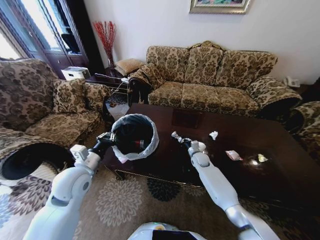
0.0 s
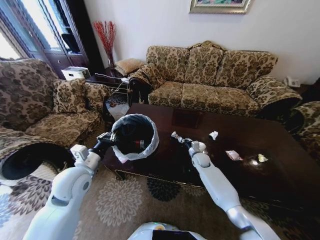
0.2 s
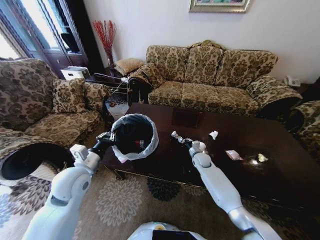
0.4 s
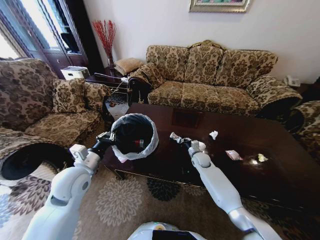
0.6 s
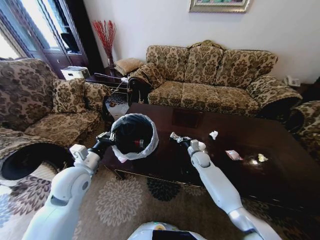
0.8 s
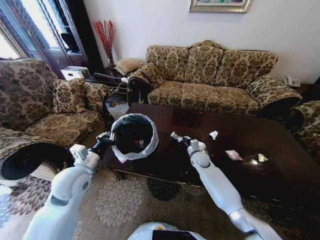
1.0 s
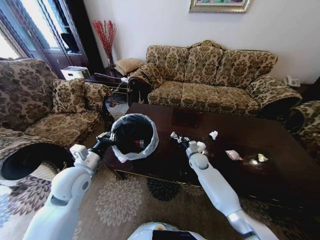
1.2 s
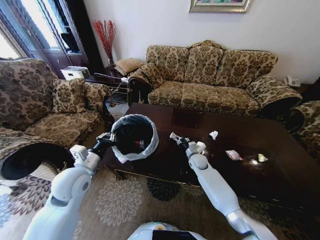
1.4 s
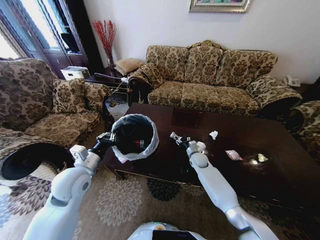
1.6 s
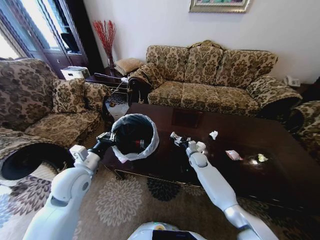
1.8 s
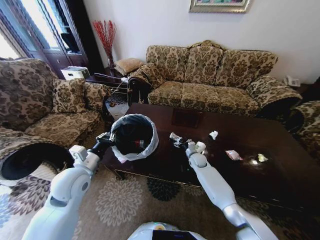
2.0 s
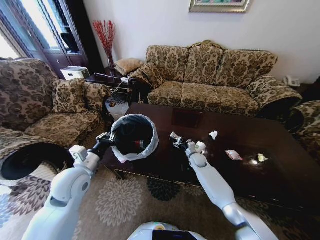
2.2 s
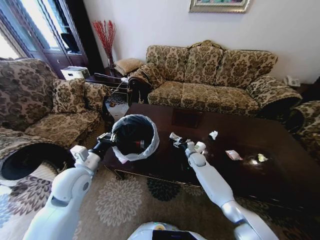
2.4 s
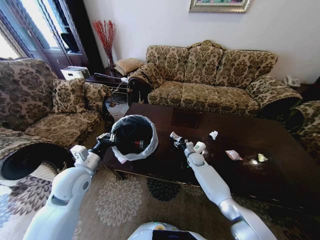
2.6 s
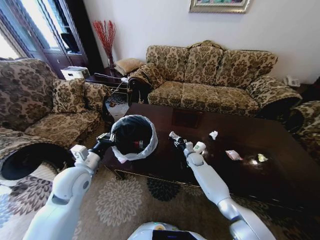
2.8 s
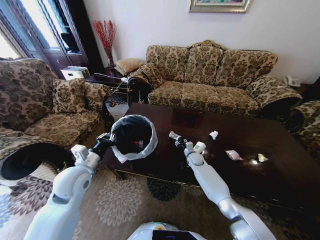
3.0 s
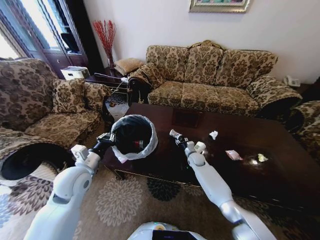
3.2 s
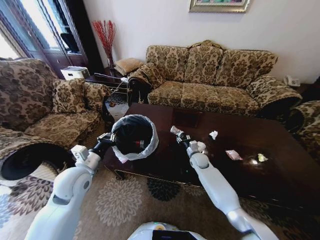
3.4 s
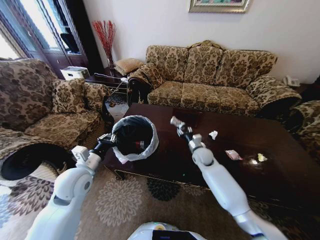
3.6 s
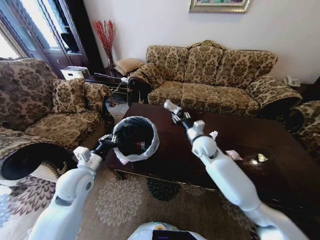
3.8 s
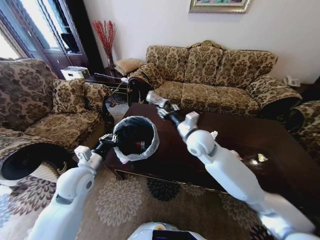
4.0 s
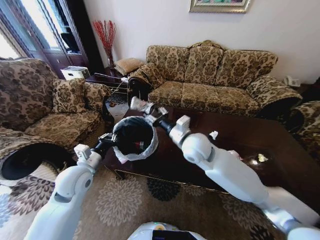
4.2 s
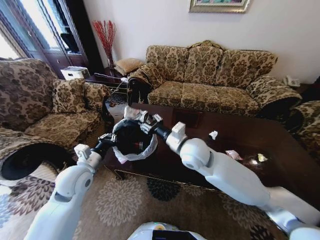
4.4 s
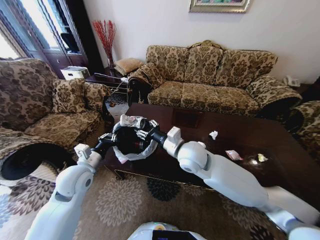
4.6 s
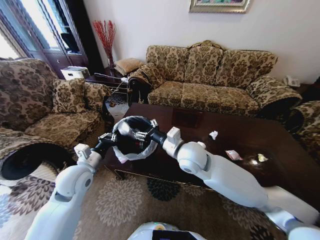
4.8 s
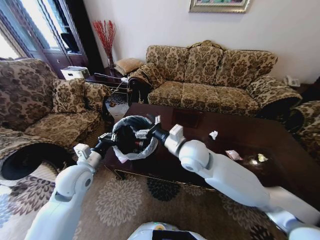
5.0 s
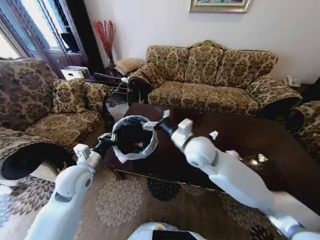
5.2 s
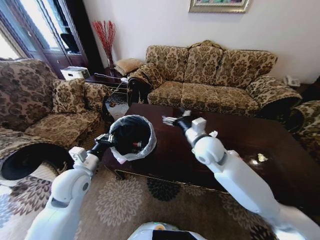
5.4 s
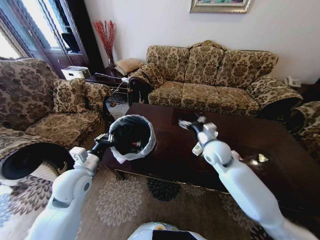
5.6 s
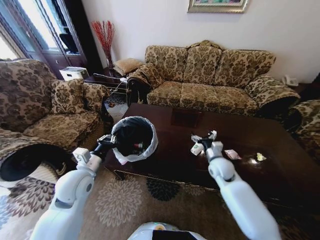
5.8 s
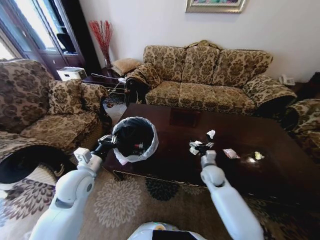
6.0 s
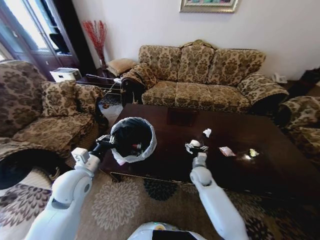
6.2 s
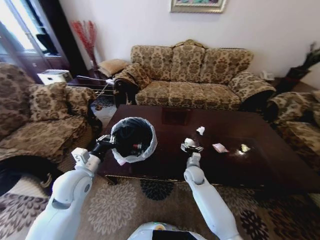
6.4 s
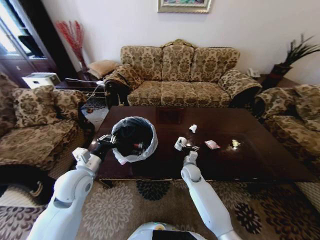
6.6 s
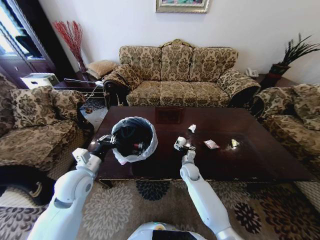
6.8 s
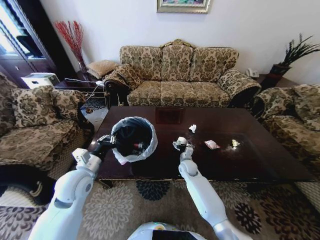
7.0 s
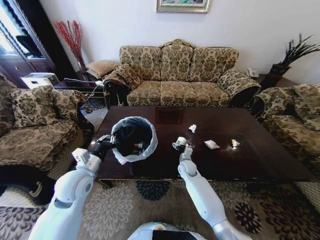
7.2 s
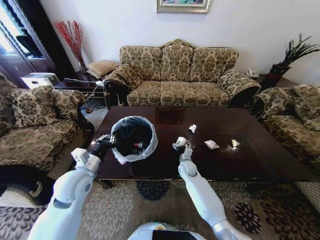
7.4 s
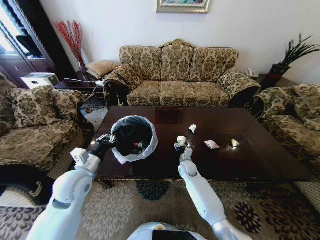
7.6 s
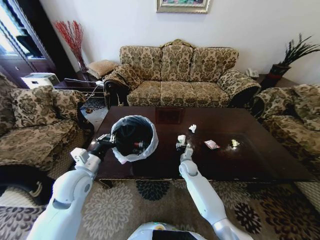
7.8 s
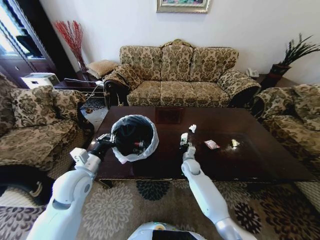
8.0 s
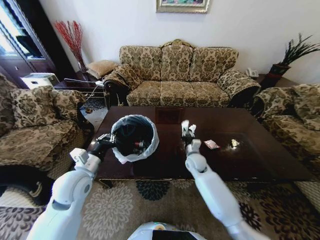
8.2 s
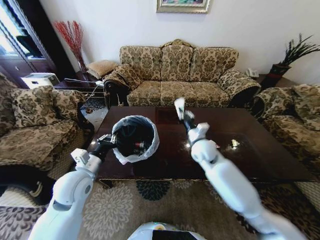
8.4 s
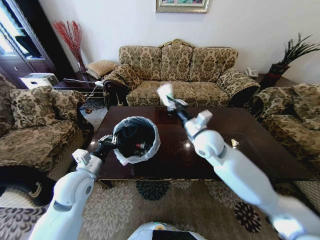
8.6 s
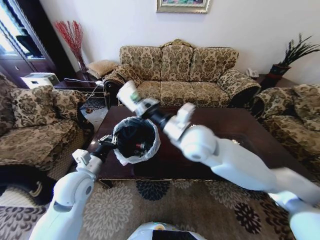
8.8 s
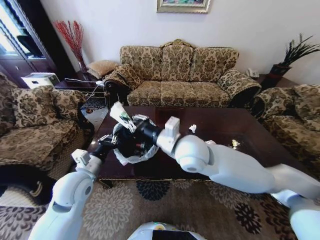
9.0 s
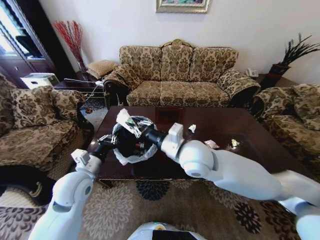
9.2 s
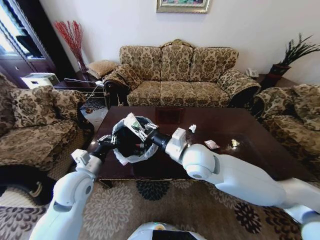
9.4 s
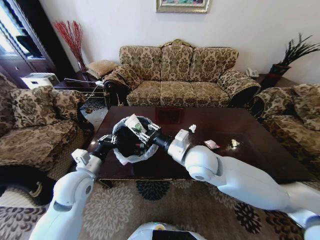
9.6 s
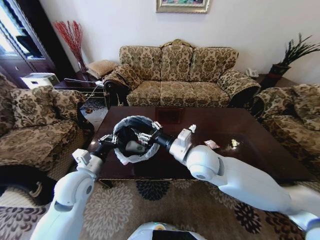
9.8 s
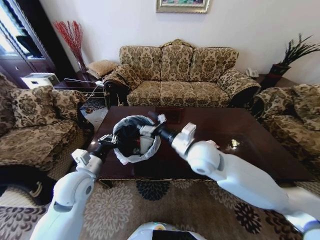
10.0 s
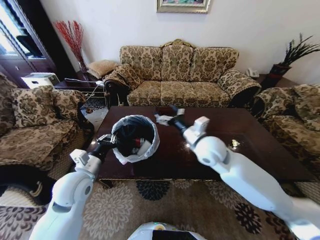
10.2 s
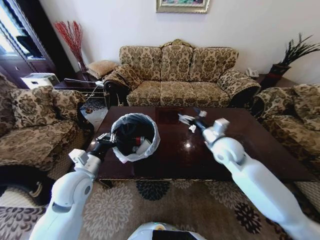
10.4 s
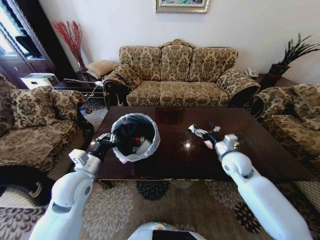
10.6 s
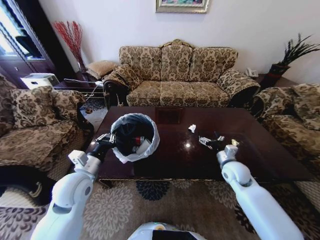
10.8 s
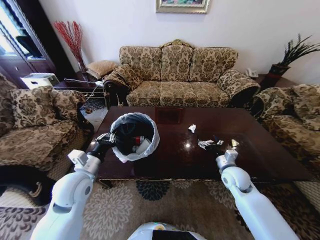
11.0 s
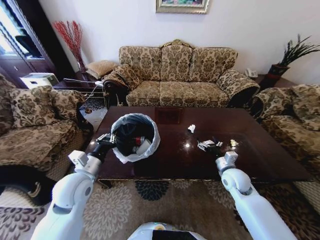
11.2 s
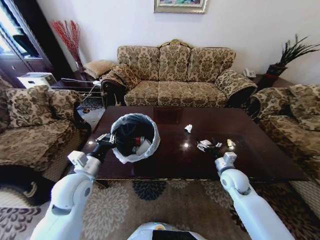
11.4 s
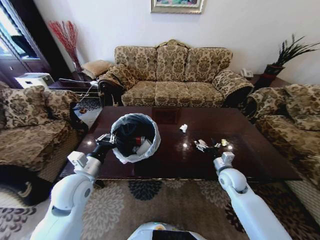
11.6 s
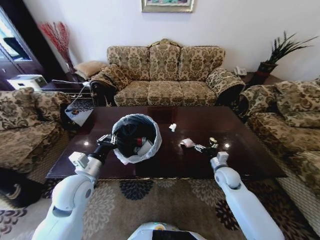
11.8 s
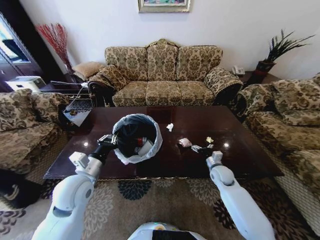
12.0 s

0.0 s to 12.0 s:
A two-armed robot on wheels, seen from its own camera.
Task of the whole recording: Move to the front of the table and place the trash on the table into the trash bin.
0.0 to 1.6 s: The right gripper opens up.
1.6 to 3.0 s: The right gripper opens, then closes again.
3.0 to 4.4 s: The right gripper shifts approximately 35 cm upward and backward.
4.4 to 6.0 s: The right gripper moves downward and to the right, about 25 cm, and opens up.
6.0 to 7.6 s: The right gripper is displaced to the left, downward and forward by about 15 cm.
7.6 to 9.0 s: The right gripper moves upward, roughly 35 cm, and closes its fingers.
9.0 to 10.4 s: The right gripper shifts some 20 cm to the right and downward, and opens.
10.4 to 12.0 s: The right gripper is displaced downward by roughly 20 cm.

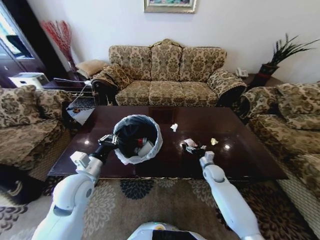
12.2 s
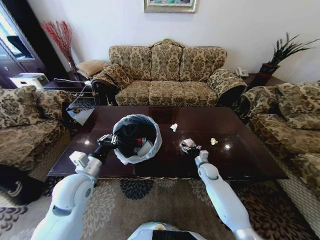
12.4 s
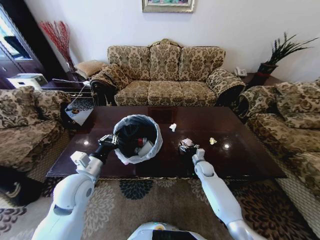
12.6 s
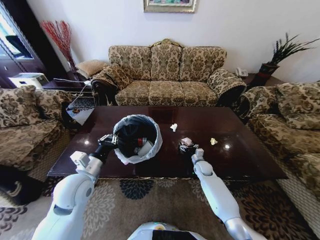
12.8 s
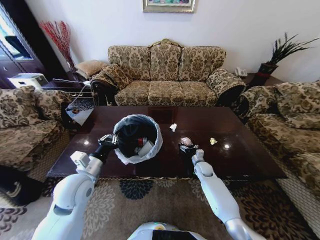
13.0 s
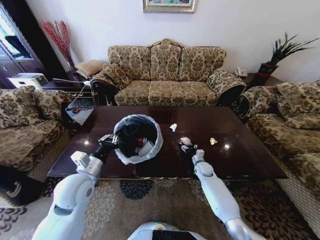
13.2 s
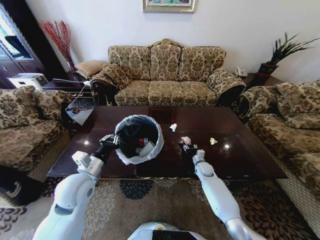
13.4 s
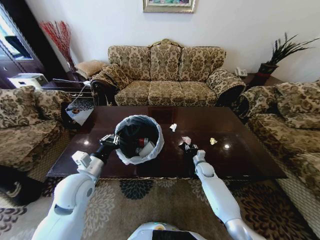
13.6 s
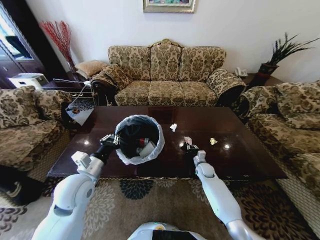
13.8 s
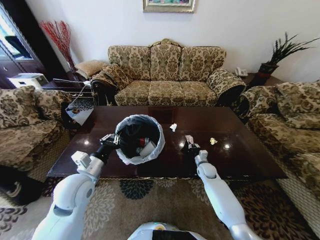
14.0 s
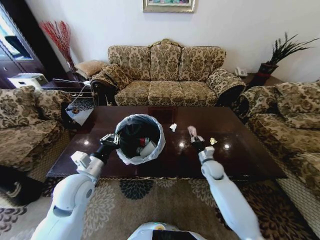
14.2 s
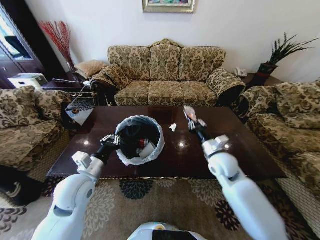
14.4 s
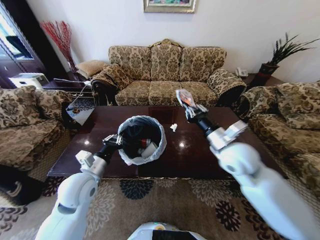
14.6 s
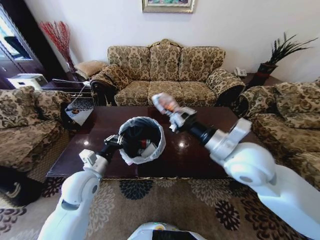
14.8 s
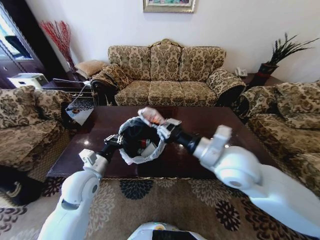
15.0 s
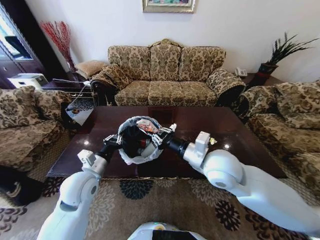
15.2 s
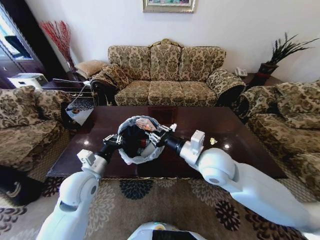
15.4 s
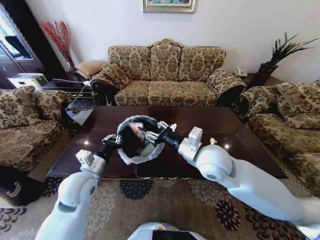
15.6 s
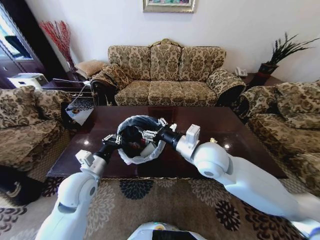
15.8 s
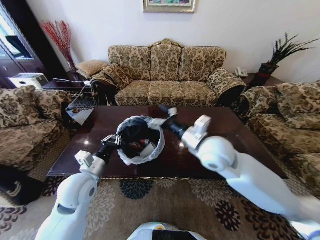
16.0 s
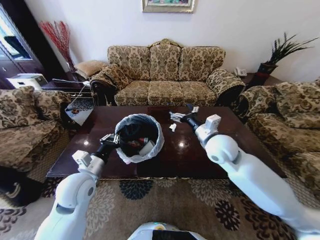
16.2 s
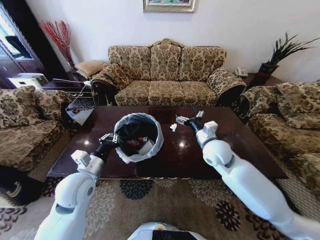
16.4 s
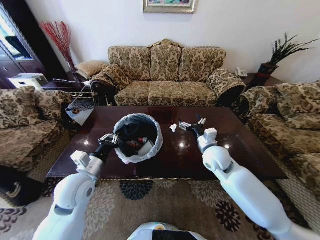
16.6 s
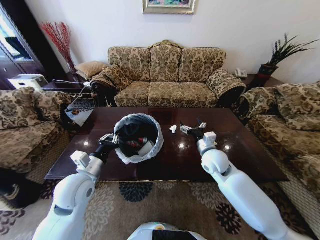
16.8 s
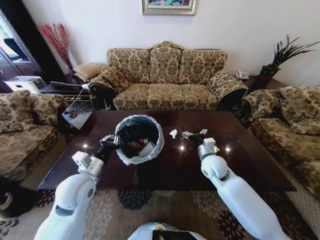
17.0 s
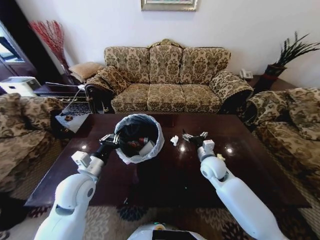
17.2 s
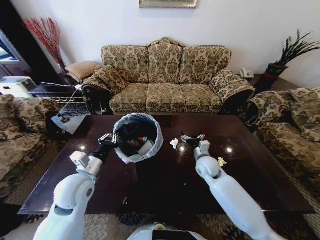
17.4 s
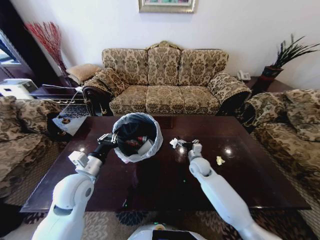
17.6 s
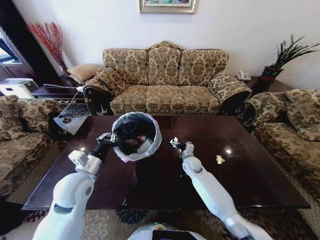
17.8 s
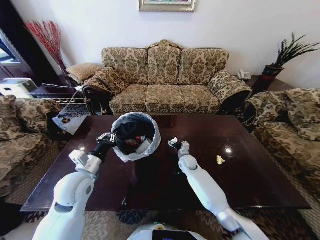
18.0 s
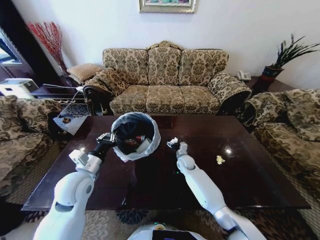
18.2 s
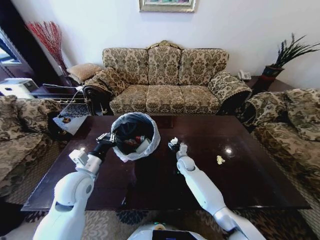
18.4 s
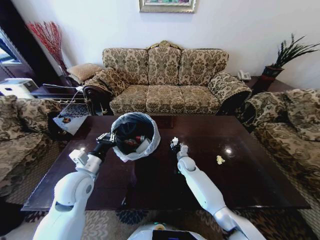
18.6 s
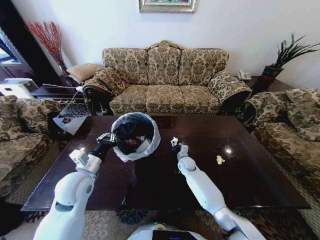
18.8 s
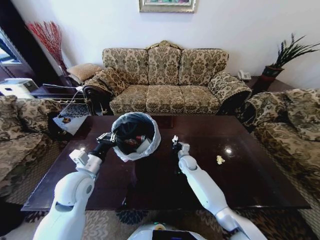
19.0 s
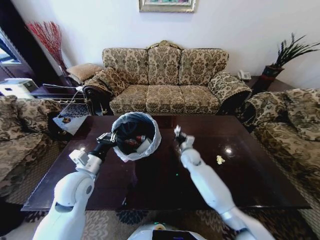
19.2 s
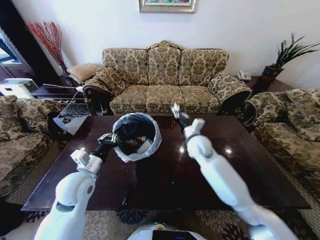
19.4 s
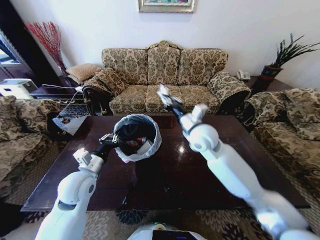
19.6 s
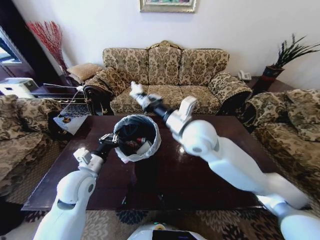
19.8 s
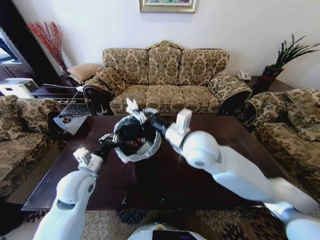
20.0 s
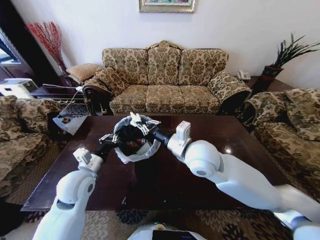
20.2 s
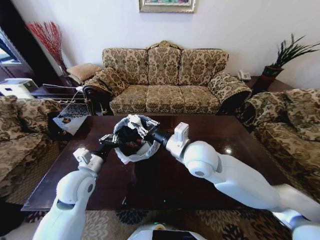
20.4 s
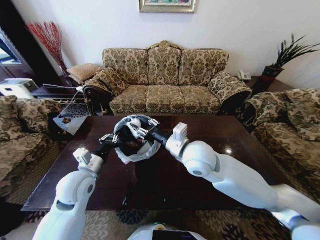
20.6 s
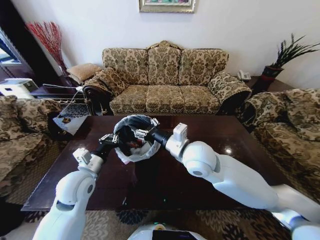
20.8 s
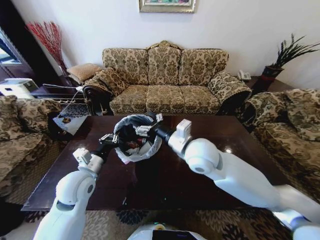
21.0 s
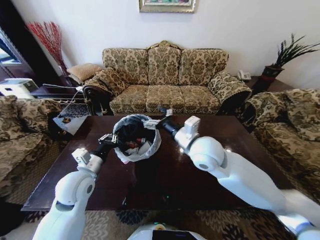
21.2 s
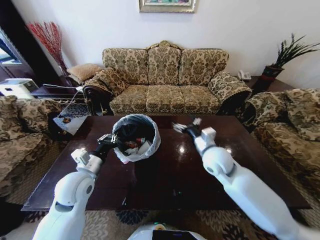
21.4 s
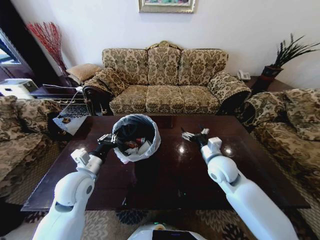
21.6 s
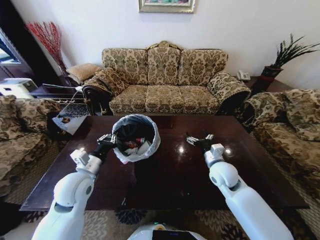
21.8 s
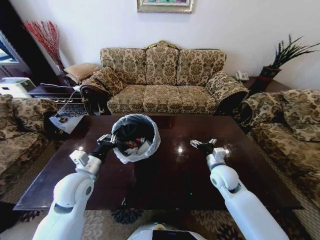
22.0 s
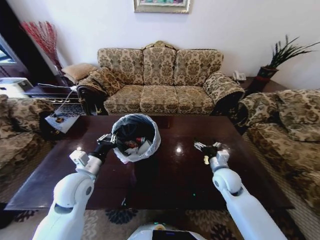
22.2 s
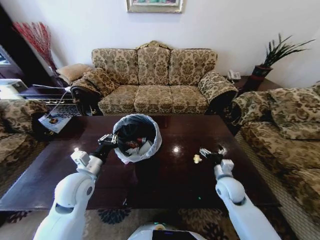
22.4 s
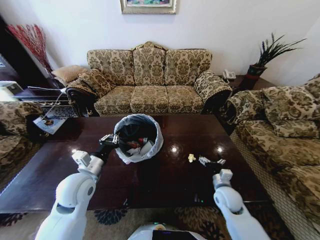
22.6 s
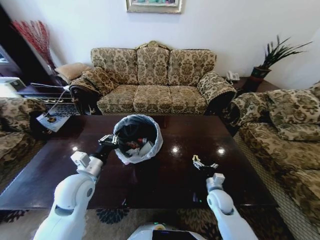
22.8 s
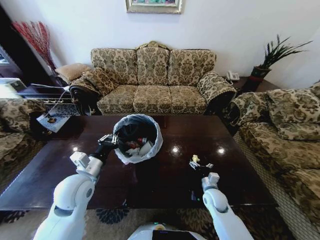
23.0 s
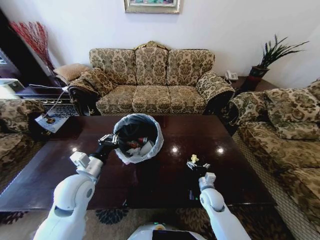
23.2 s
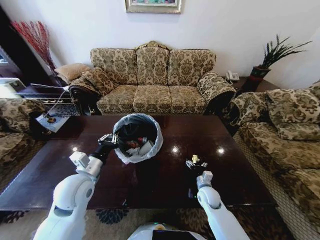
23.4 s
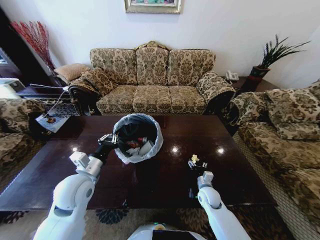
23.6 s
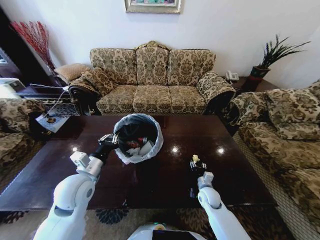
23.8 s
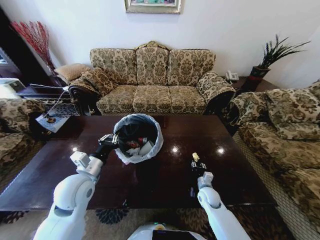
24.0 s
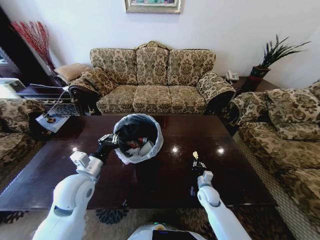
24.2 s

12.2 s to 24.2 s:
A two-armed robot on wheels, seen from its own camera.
Task of the whole recording: Move to the front of the table and place the trash on the table into the trash bin.
12.2 to 13.8 s: The right gripper shifts by approximately 5 cm, and closes up.
13.8 to 15.2 s: The right gripper heads upward and backward, covering approximately 35 cm.
15.2 to 16.6 s: The right gripper is displaced forward, downward and to the right by some 15 cm, and opens up.
16.6 to 18.2 s: The right gripper heads downward and forward, covering approximately 20 cm.
18.2 to 19.8 s: The right gripper shifts some 35 cm upward, and closes.
19.8 to 21.2 s: The right gripper is displaced downward by some 5 cm, and opens.
21.2 to 22.6 s: The right gripper is displaced downward and to the right by about 30 cm.
22.6 to 24.2 s: The right gripper is displaced downward by some 10 cm, and closes up.
